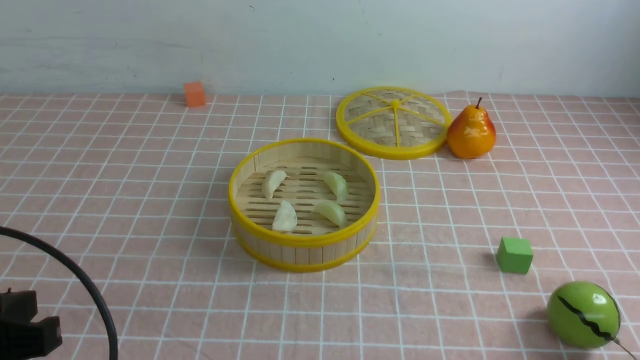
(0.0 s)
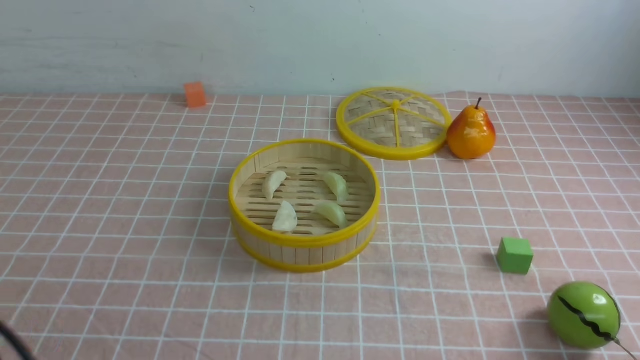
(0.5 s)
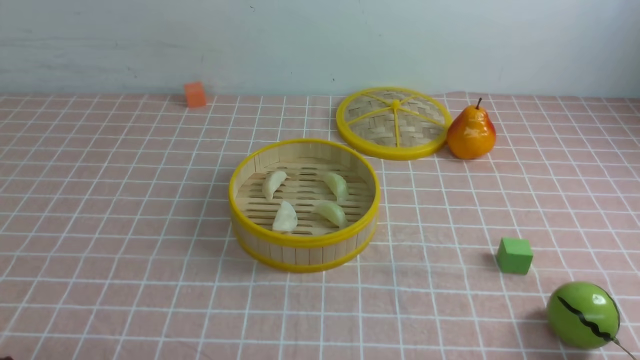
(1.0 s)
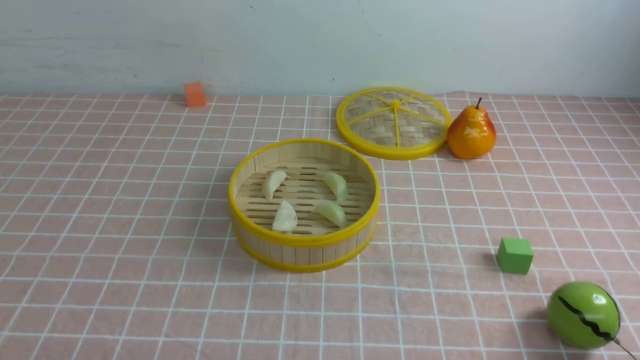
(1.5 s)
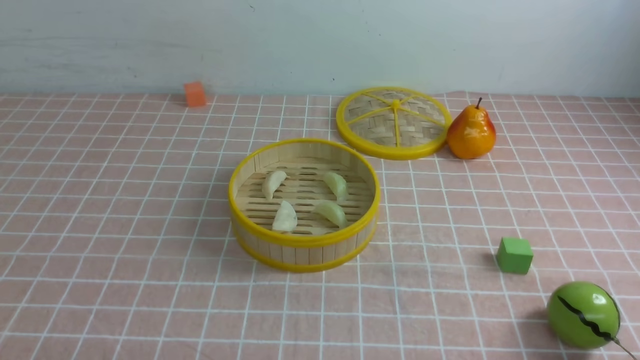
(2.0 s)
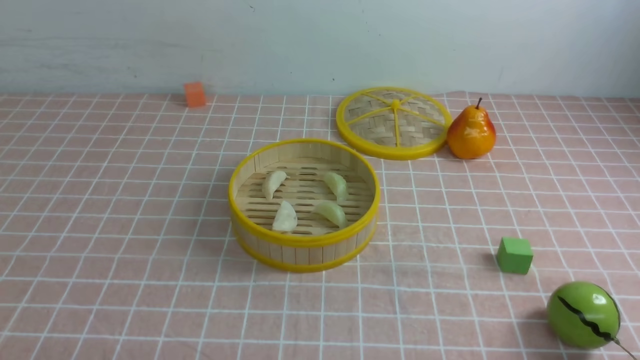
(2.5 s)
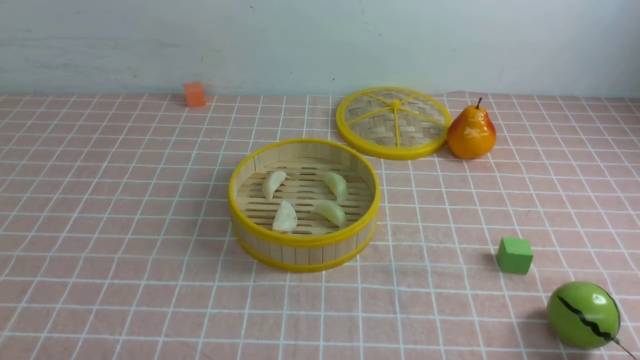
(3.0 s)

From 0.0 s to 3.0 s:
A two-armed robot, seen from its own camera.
Task of the whole recording: put the dumplings into the steamer on the table with the pink tablecloth.
From 0.0 s to 1.5 s: The left gripper travels downward and backward by some 15 cm.
From 1.5 s to 3.0 s: The two grippers keep their place.
